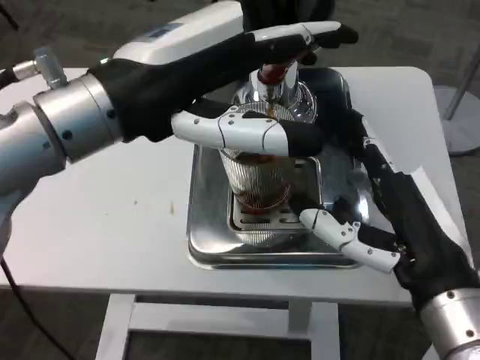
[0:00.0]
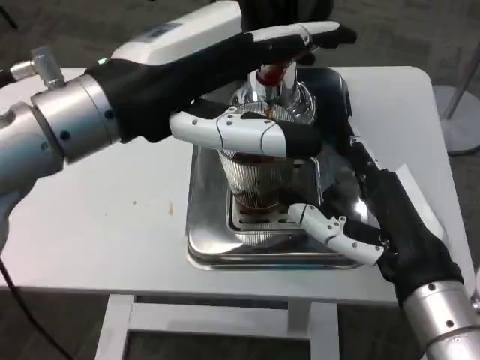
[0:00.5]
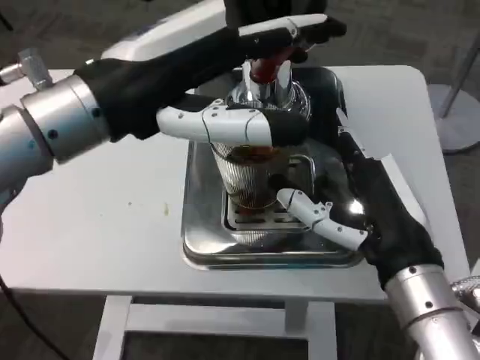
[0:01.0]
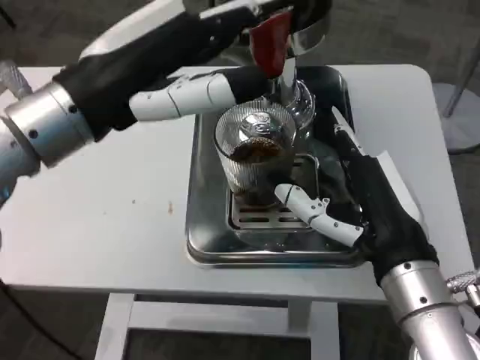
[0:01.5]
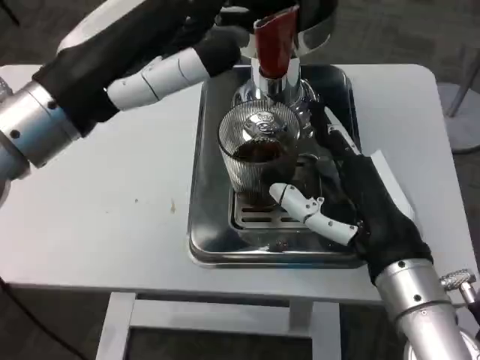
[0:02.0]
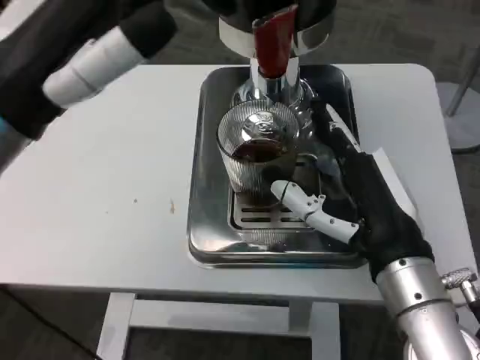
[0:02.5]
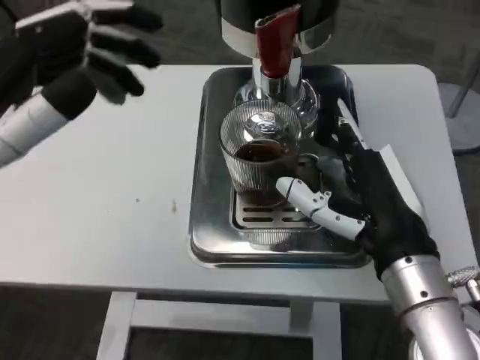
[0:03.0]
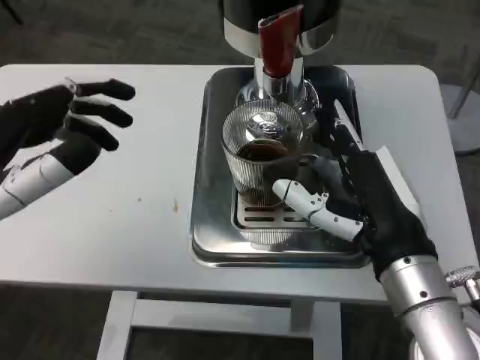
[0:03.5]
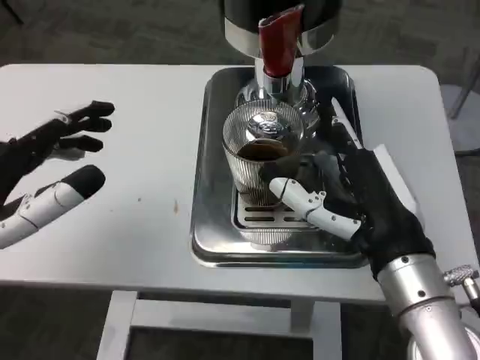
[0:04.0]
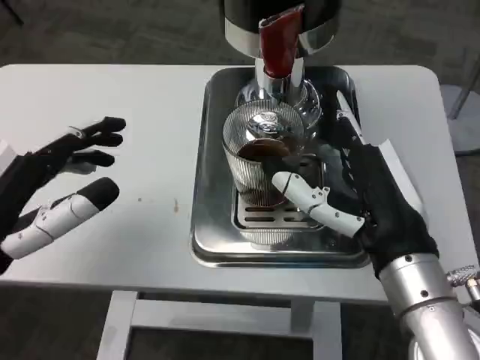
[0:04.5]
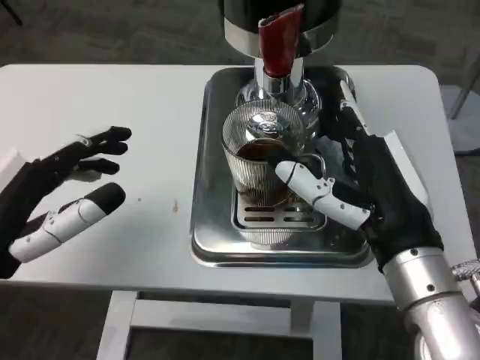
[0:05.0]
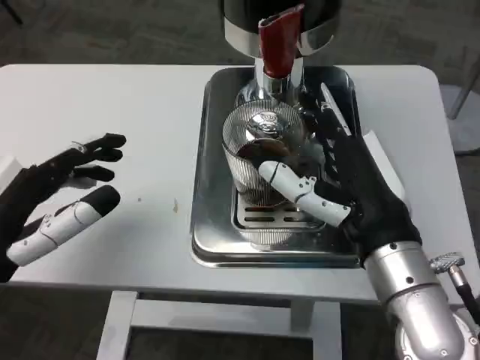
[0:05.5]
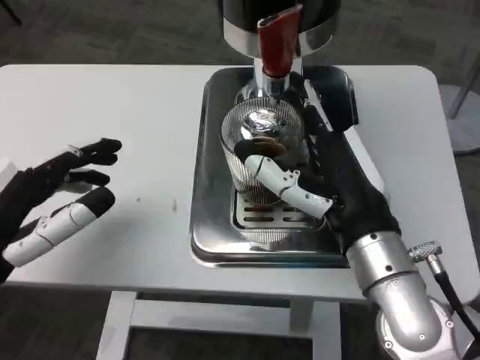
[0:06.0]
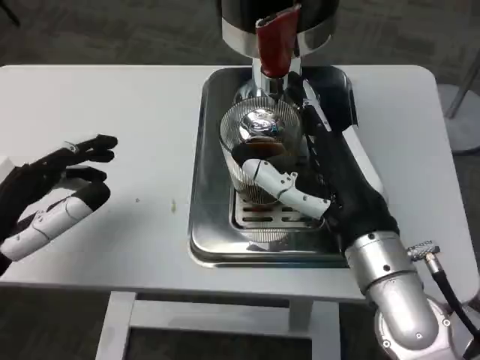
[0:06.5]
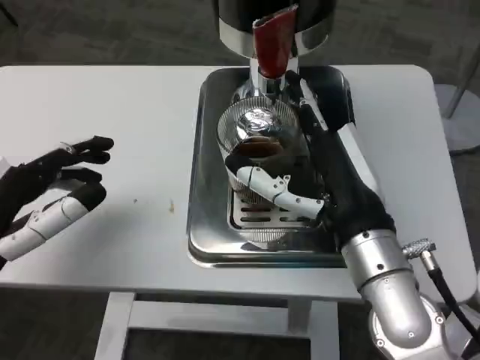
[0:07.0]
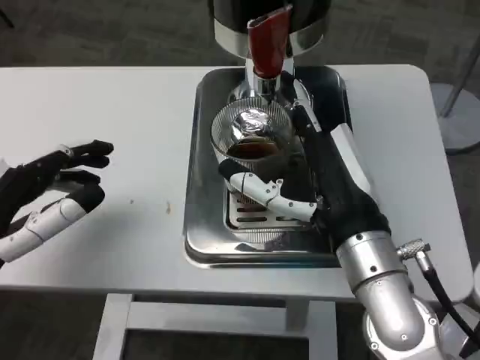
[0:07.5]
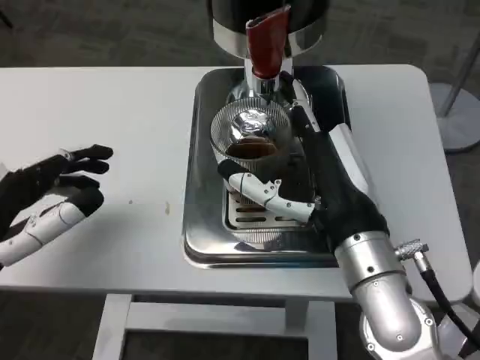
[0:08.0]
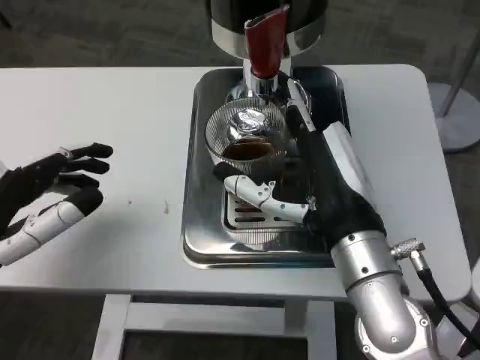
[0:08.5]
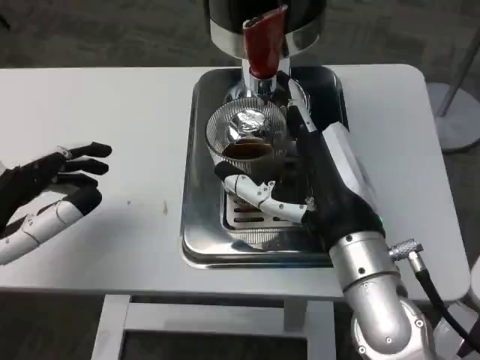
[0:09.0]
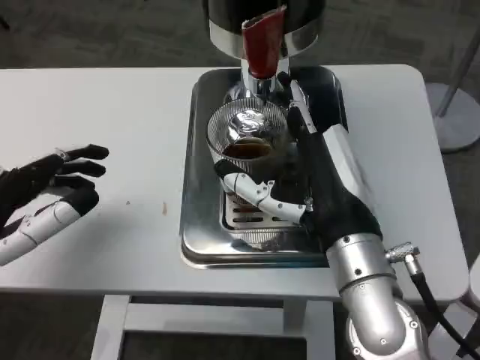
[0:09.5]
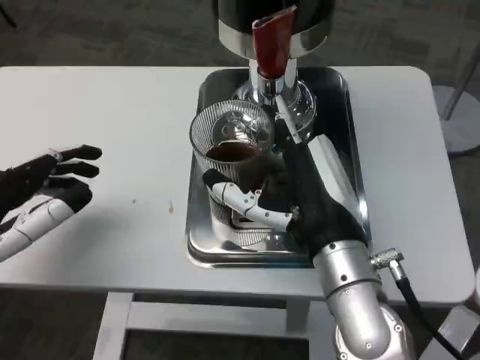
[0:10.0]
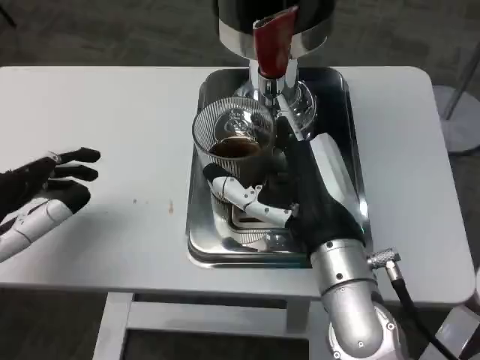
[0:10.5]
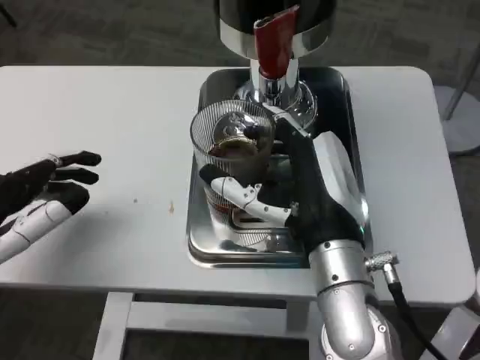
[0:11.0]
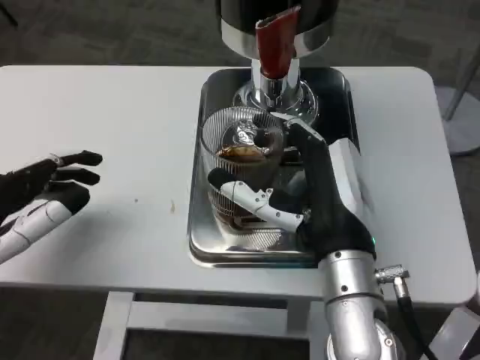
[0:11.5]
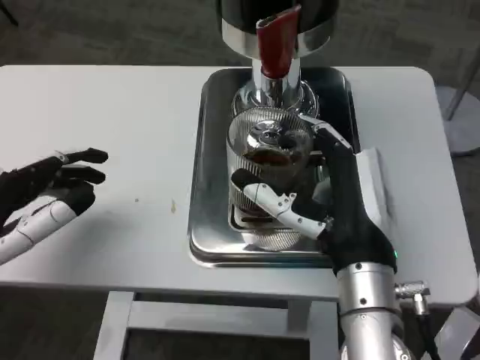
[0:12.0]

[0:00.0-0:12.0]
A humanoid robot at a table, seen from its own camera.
Task of the whole recording: Grasp the cup under the faucet to collect the drink, then remove the cup.
0:02.0 to 0:04.0: The left hand shifts some 15 cm downward, to the left and backward.

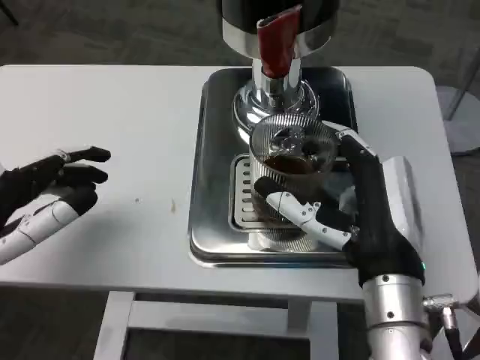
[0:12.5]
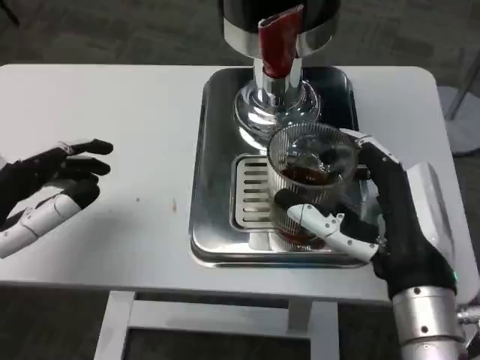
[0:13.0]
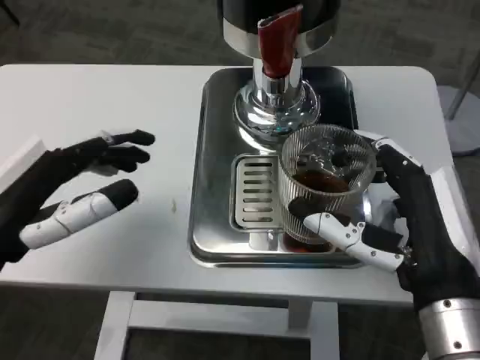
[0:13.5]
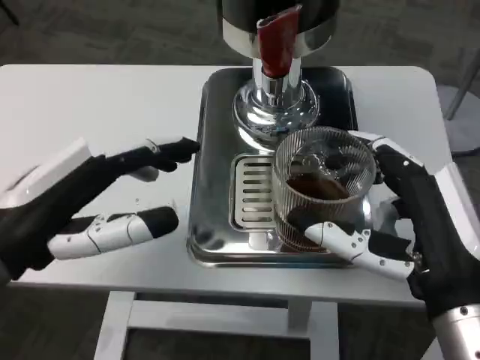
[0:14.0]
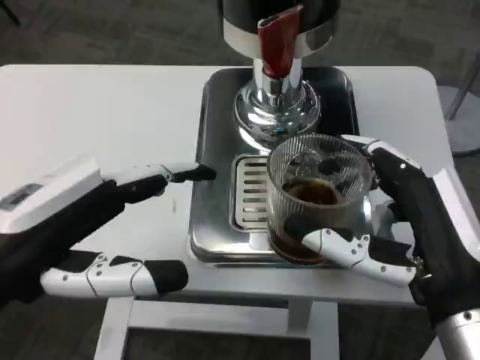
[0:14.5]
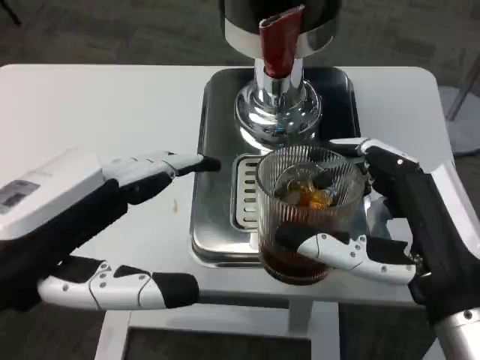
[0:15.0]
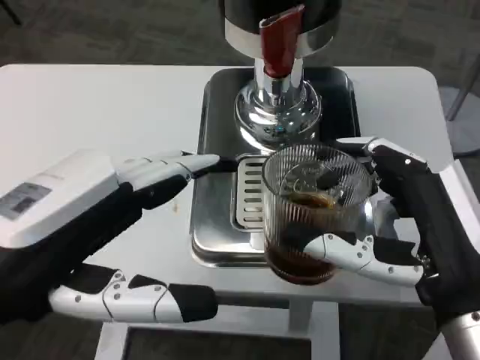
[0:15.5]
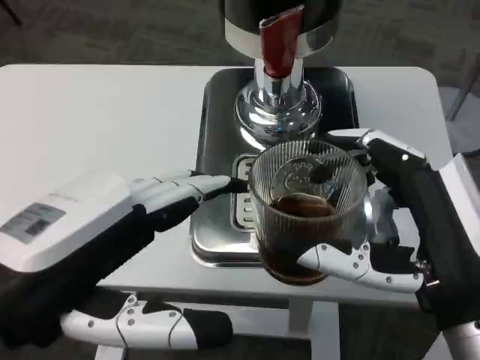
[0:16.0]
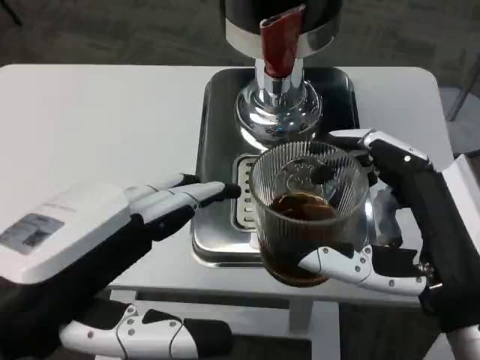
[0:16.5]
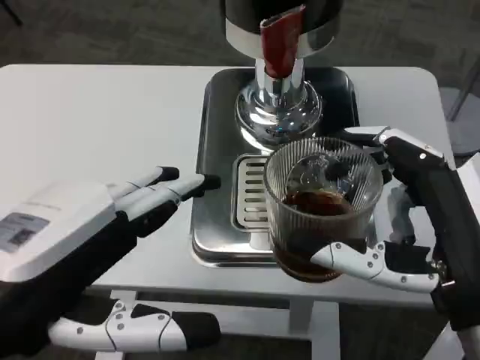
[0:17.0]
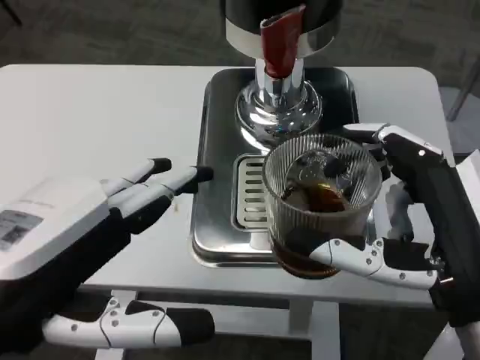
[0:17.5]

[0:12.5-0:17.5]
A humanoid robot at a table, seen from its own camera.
Task of the whole recording: Grasp the cup under the faucet to collect the drink, then remove the cup.
0:12.5 to 0:15.0: The left hand heads upward and to the right, covering roughly 10 cm. Meanwhile the right hand goes some 10 cm backward and to the right.

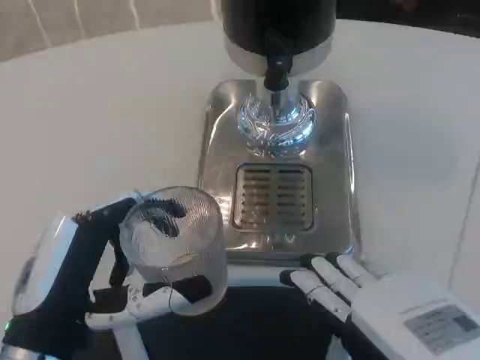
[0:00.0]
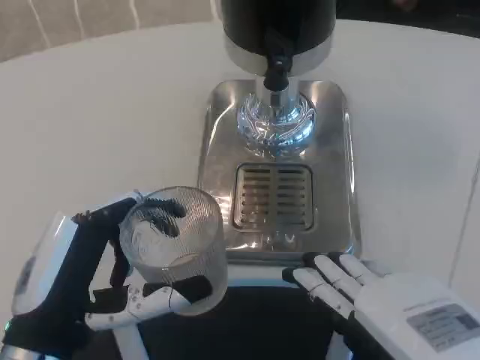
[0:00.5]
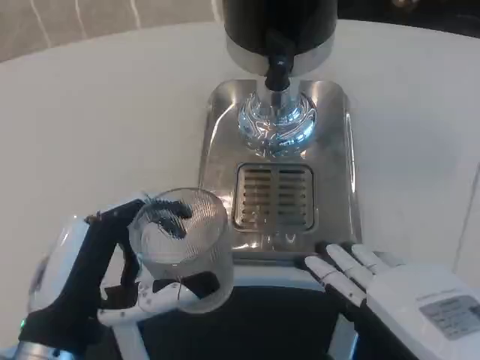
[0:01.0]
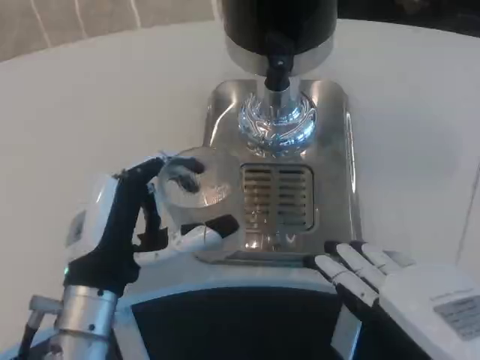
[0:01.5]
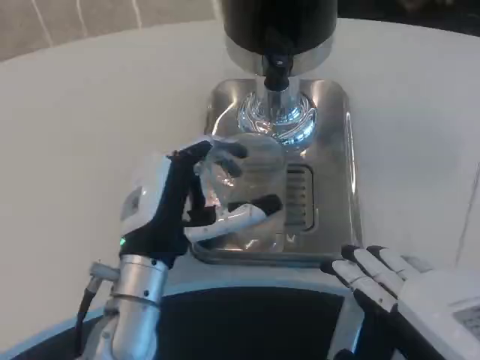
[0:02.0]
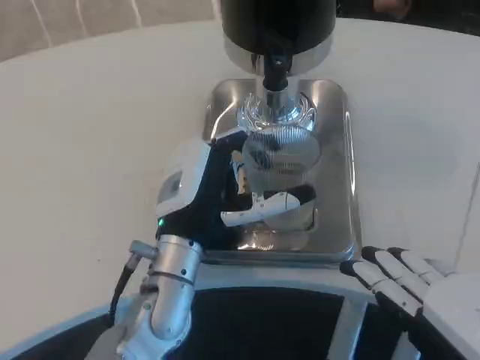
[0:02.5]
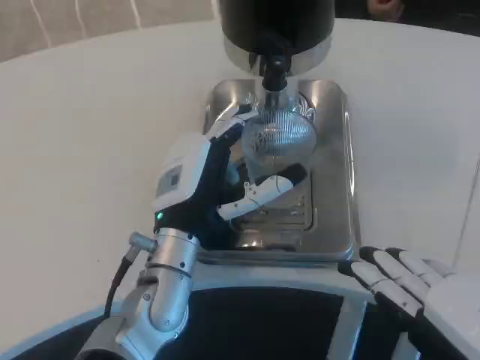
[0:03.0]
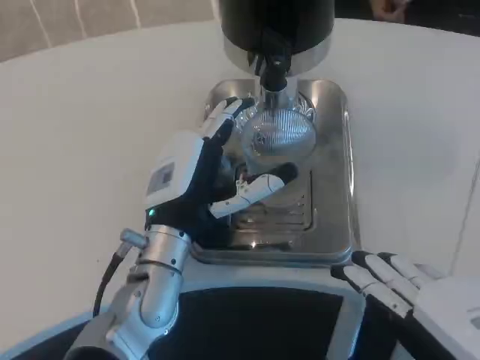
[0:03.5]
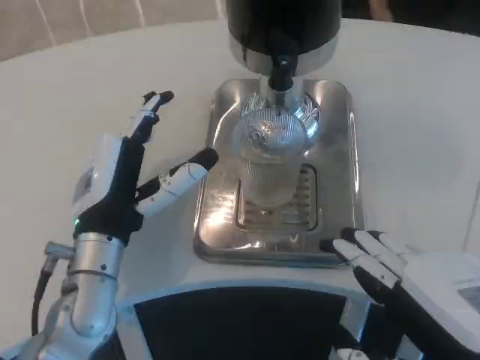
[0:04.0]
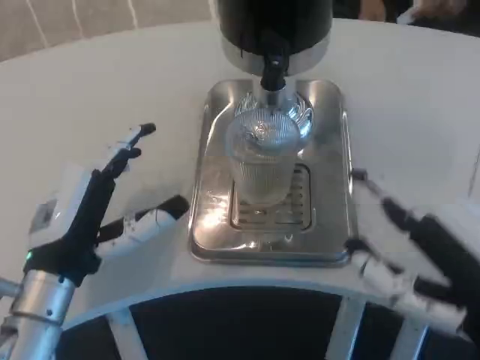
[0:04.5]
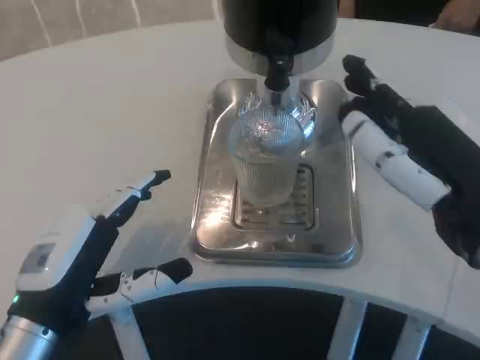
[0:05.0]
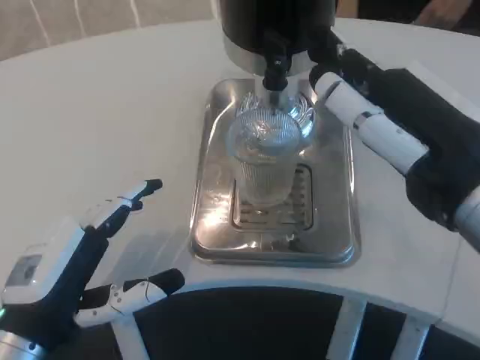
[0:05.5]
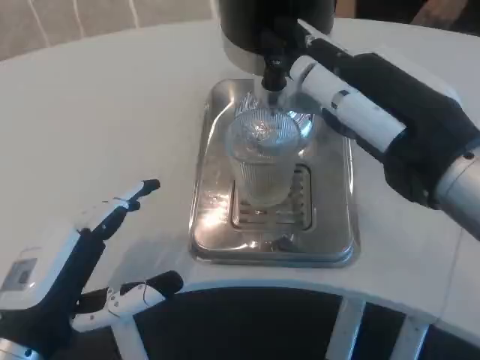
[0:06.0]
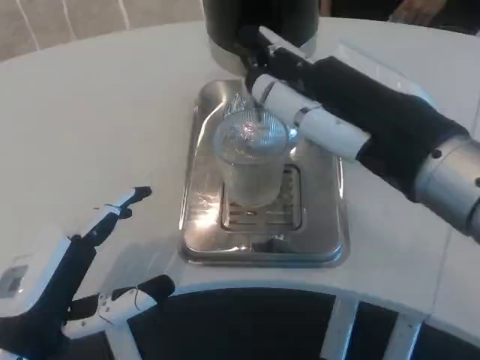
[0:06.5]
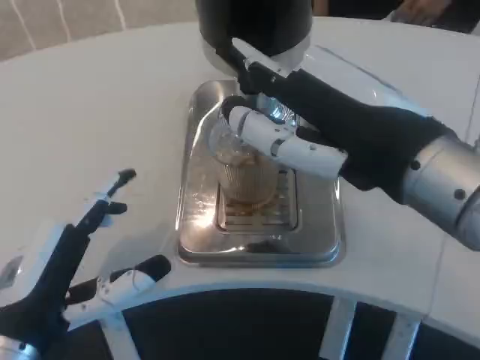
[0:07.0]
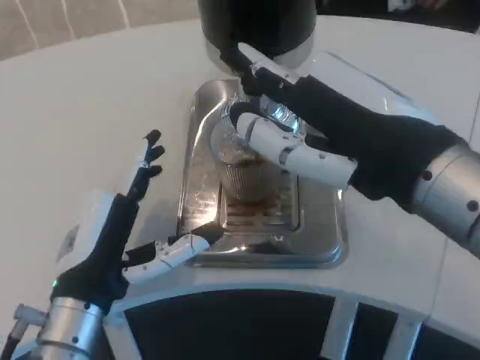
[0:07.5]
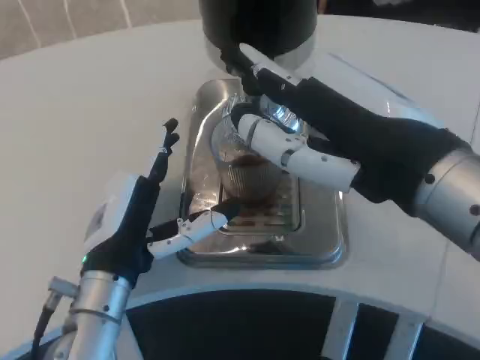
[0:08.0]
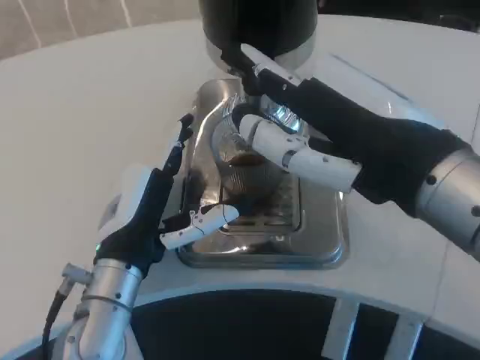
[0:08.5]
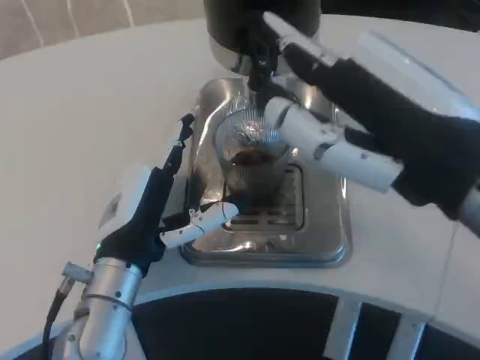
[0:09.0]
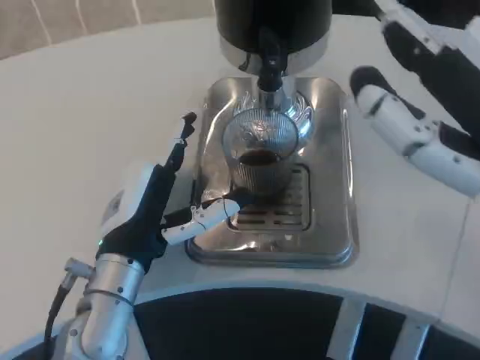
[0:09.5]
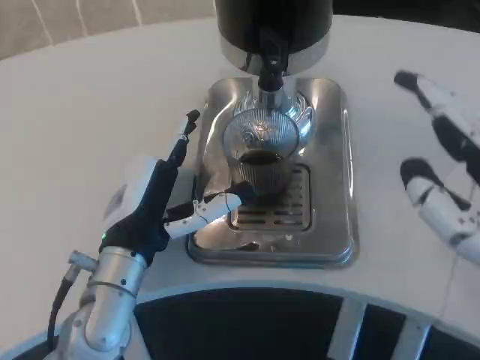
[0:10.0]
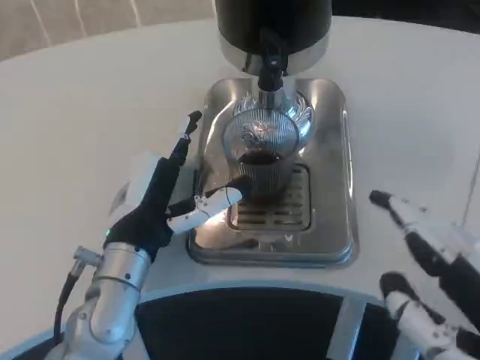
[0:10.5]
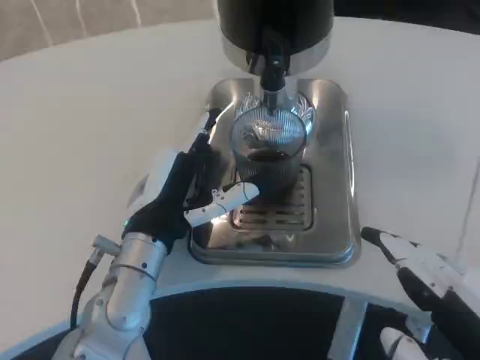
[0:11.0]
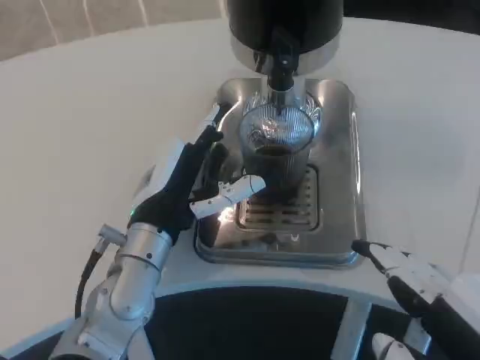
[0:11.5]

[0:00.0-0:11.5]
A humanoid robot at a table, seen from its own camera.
Task of the whole recording: Grasp the cup under the faucet to collect the drink, then remove the cup.
0:00.0 to 0:02.0: The left hand shifts approximately 15 cm forward and to the right.
0:04.0 to 0:06.0: The left hand travels backward and to the left by approximately 15 cm. Meanwhile the right hand heads forward and upward, covering some 15 cm.
0:06.0 to 0:07.5: The left hand moves to the right, some 5 cm.
0:07.5 to 0:09.5: The right hand travels to the right by some 5 cm. Meanwhile the left hand changes place by about 5 cm.
0:09.5 to 0:11.5: The right hand travels downward and backward by approximately 10 cm.
